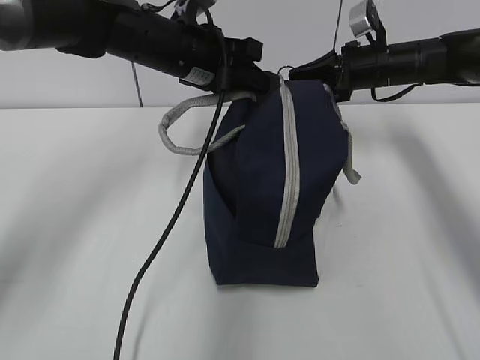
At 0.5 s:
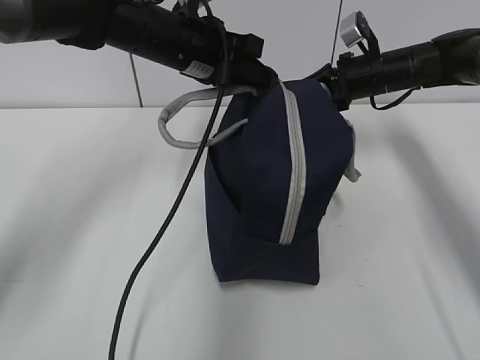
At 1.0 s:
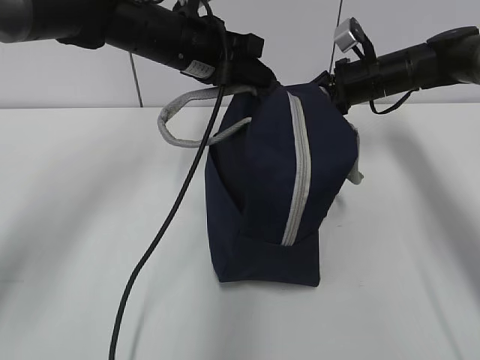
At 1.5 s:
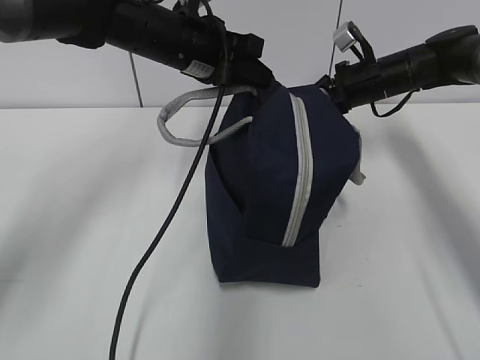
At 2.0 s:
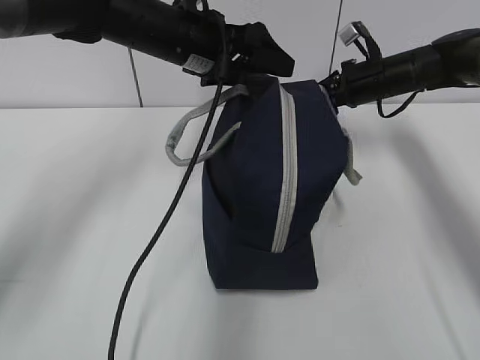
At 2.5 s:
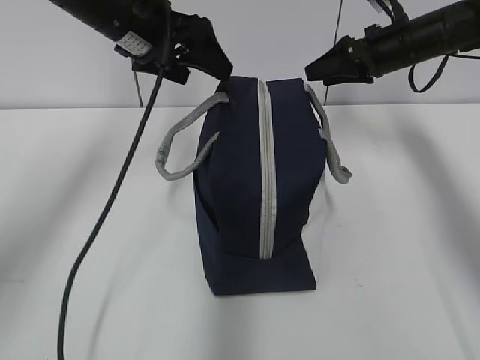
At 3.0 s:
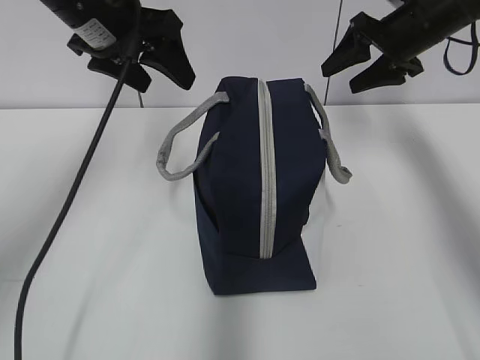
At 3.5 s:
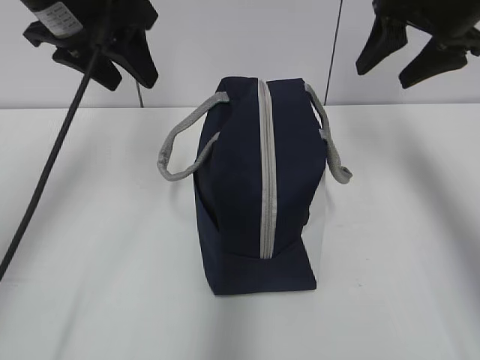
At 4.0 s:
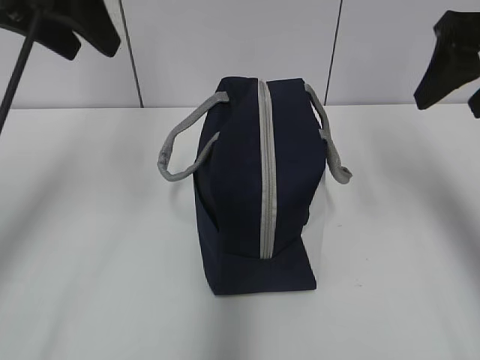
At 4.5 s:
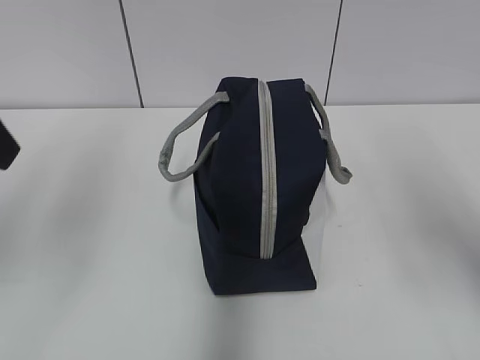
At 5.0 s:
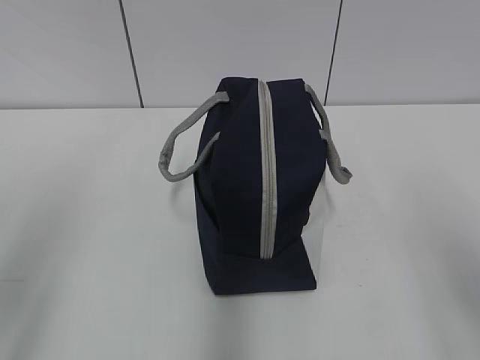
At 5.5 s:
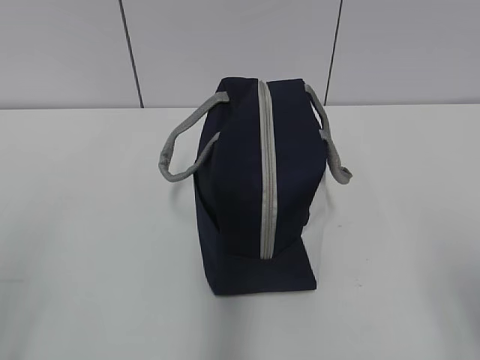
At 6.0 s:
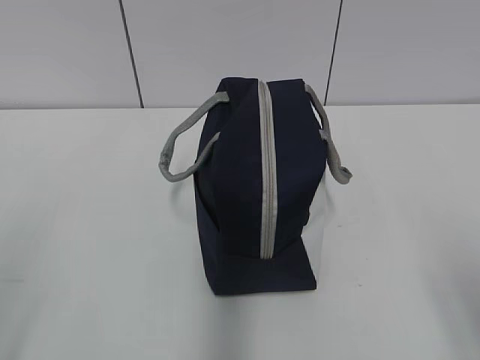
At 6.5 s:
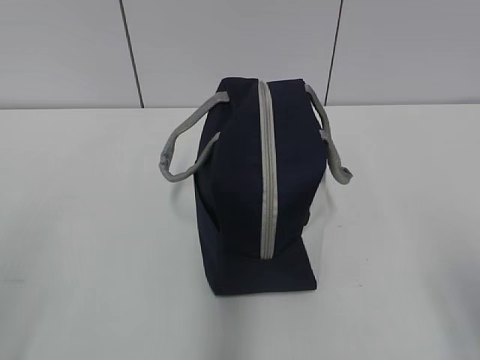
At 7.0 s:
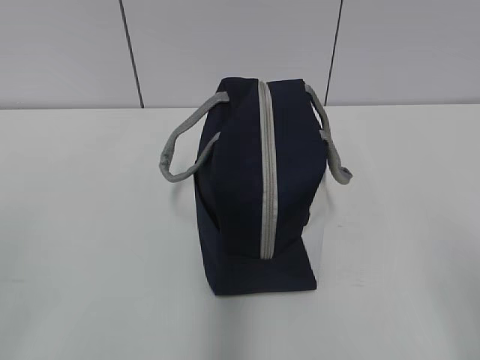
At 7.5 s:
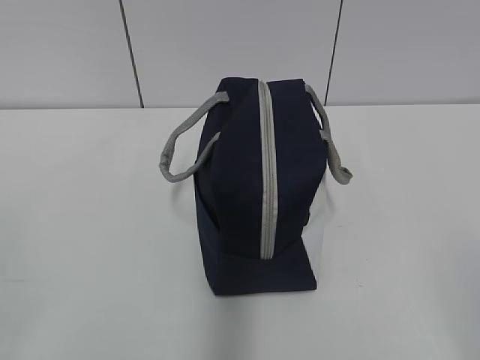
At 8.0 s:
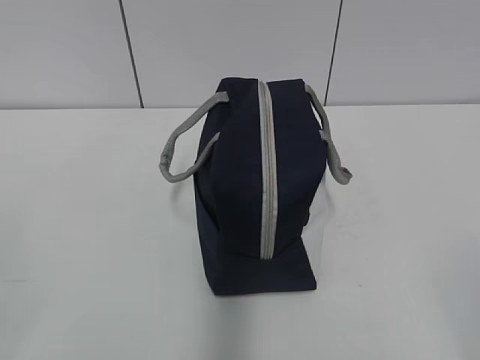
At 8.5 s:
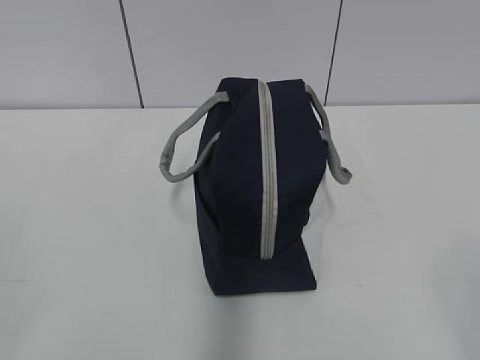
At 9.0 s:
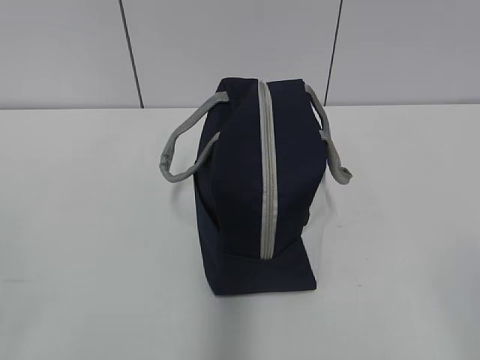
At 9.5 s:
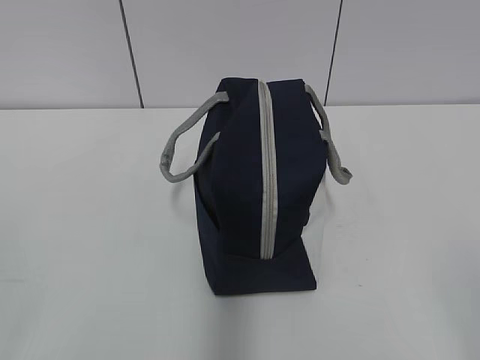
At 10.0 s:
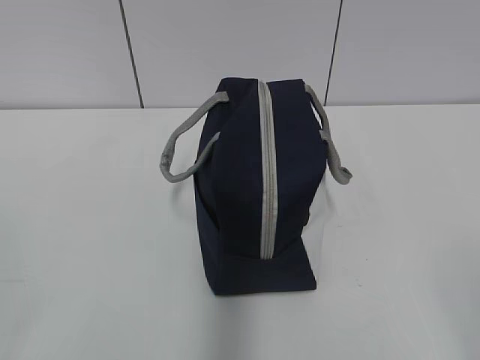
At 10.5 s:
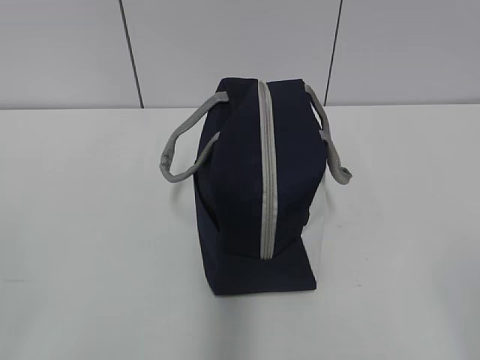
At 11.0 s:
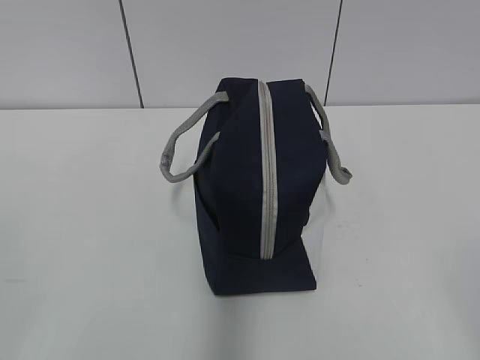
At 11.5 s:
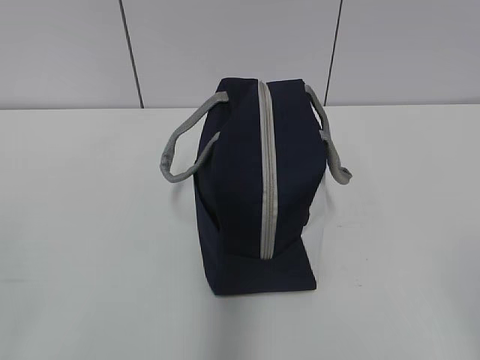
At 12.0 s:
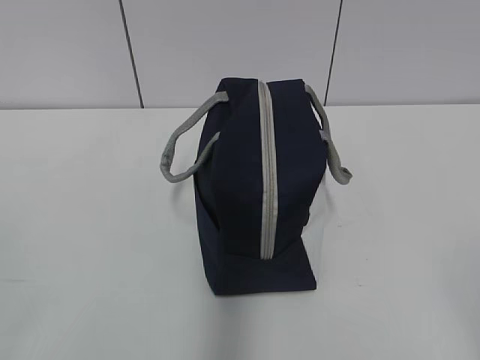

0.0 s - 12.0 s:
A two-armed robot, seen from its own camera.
0.0 s - 2.0 s: The left gripper opens its fingers. Meanwhile the right gripper opens.
2.0 s - 4.0 s: The right gripper shifts about 25 cm backward and upward. Meanwhile the left gripper shifts about 20 cm upward, to the left and backward.
4.0 s - 6.0 s: The grippers both shift backward and downward by roughly 25 cm.
10.0 s - 12.0 s: Both grippers stay put.

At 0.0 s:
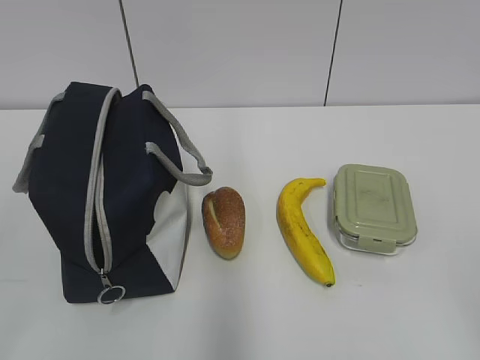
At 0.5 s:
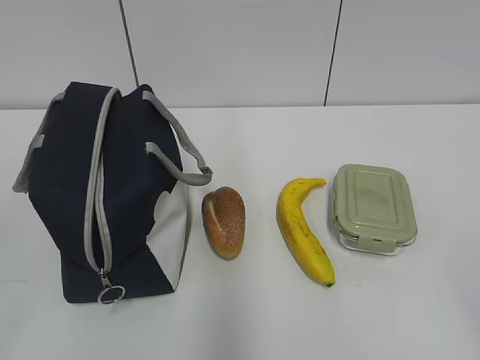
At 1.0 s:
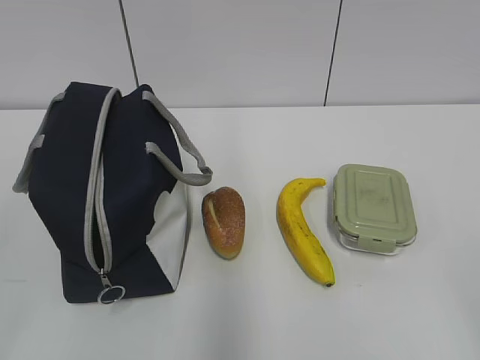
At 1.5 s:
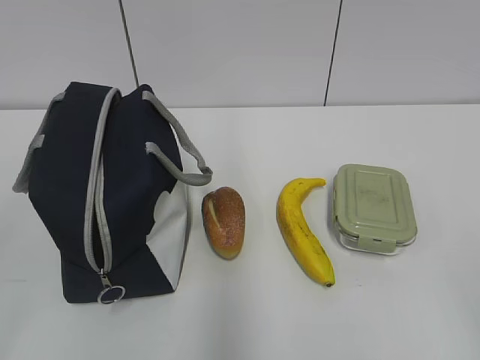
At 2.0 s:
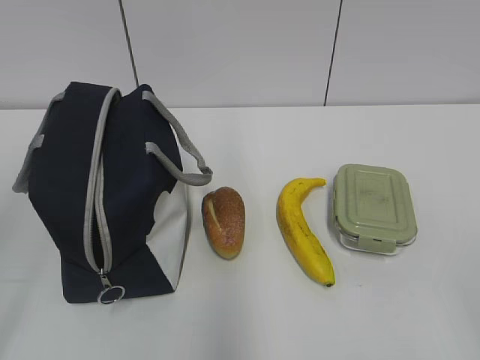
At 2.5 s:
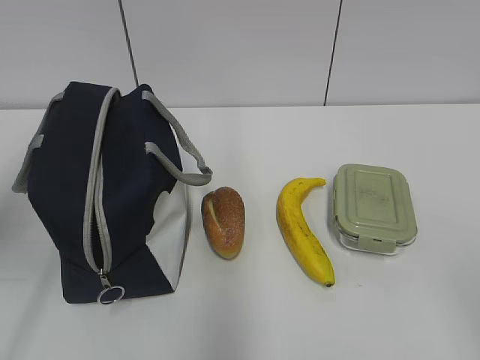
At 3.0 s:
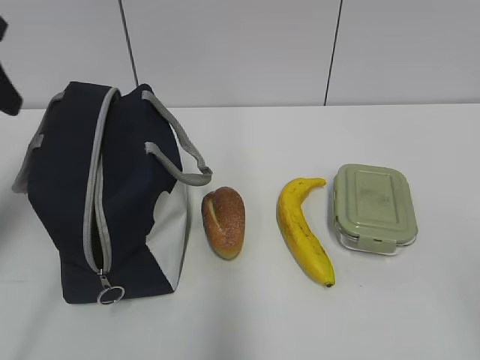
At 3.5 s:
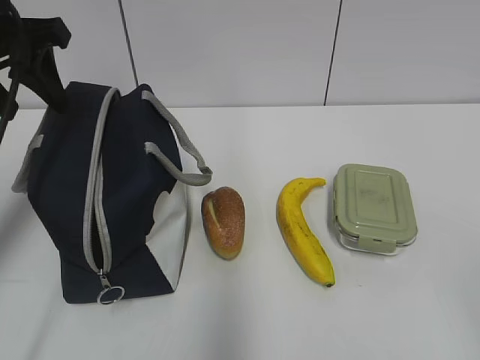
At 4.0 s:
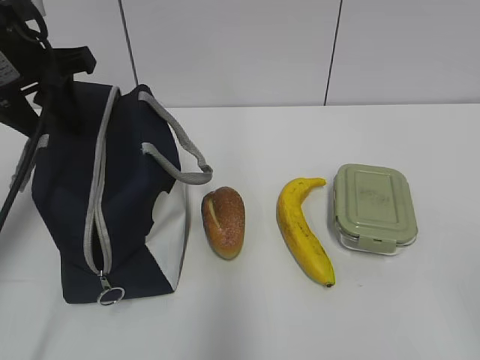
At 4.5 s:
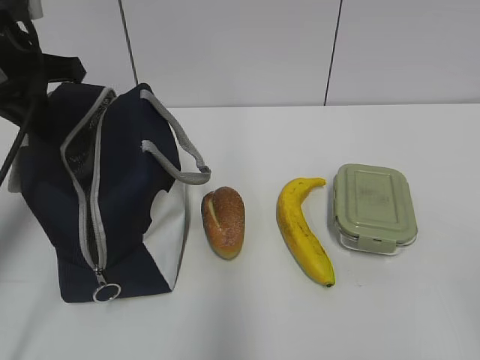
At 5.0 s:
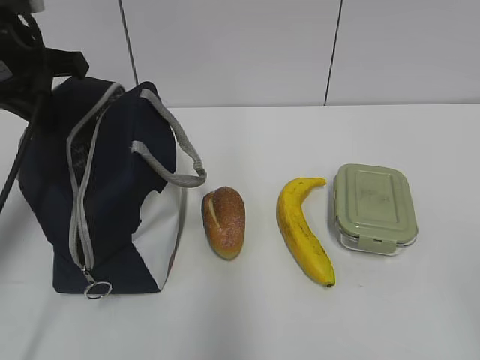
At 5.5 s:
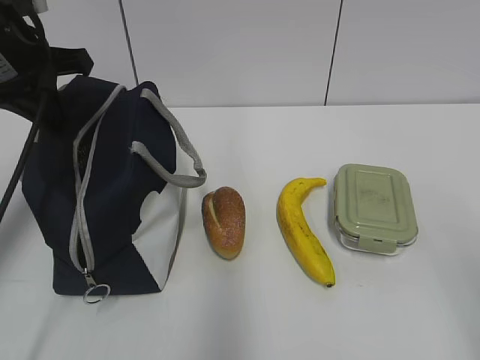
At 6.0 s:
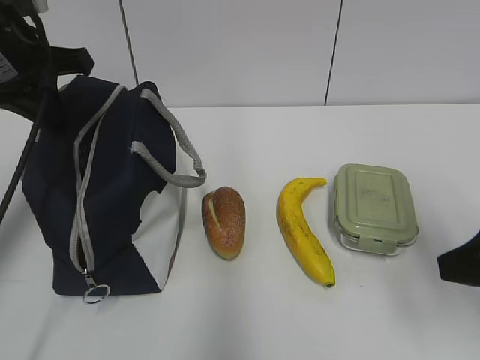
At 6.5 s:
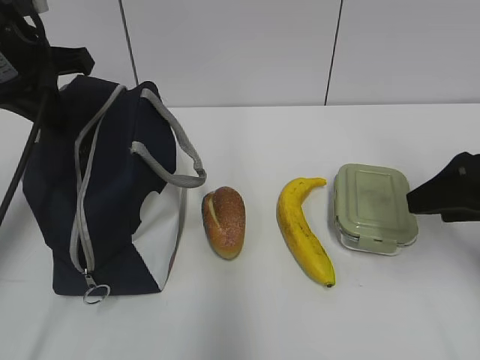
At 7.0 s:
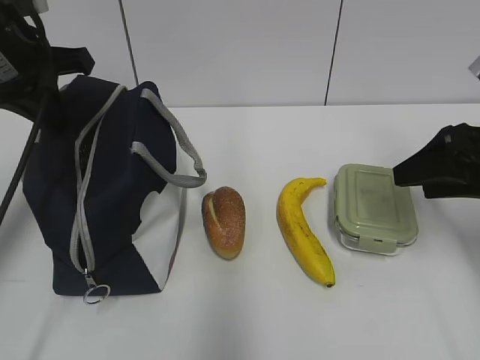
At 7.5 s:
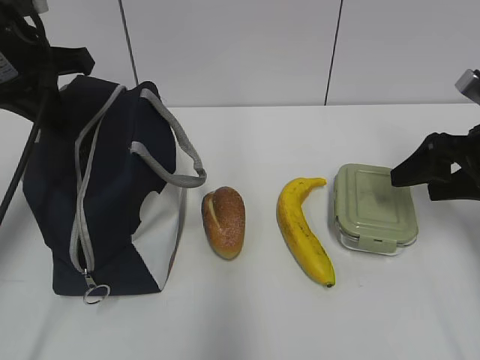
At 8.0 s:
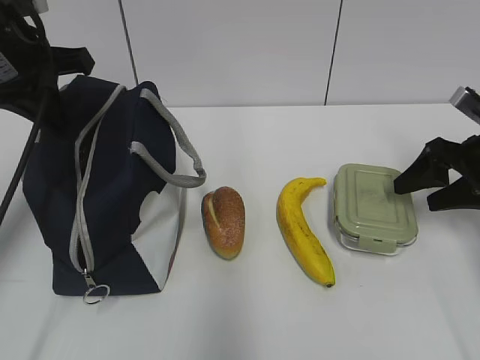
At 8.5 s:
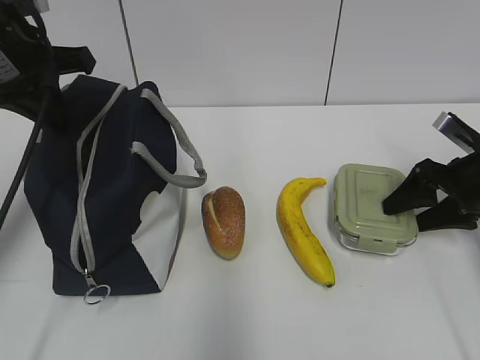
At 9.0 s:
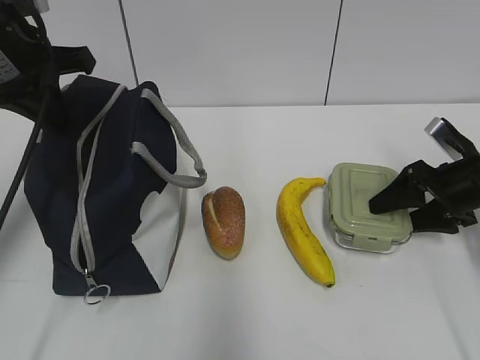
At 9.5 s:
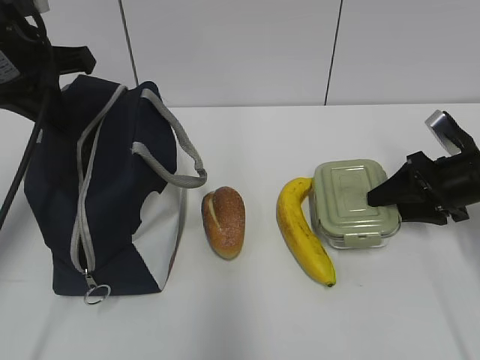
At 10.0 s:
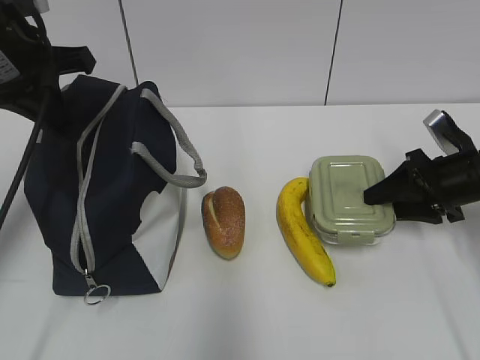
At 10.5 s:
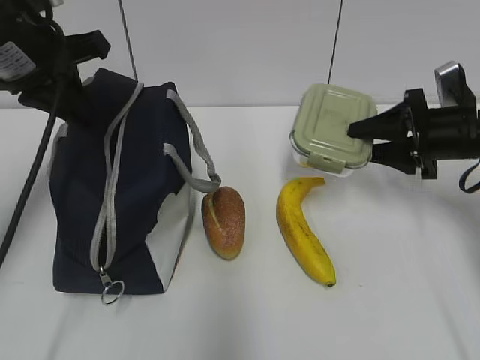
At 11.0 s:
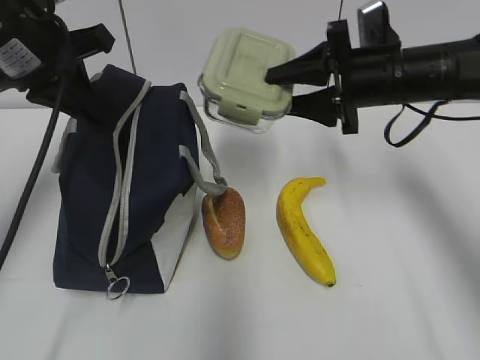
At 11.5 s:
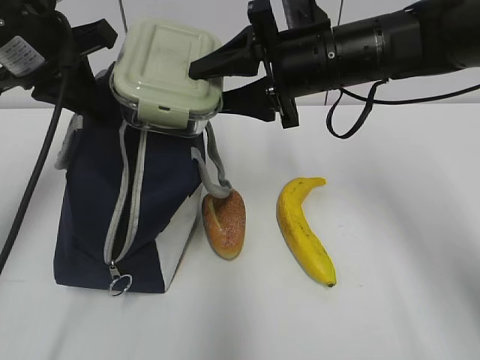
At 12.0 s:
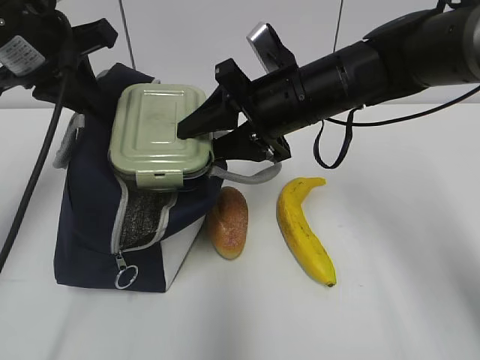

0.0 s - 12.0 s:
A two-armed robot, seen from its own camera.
2.0 s - 4.0 s: The left gripper moves forward, roughly 30 cm.
4.0 s - 6.0 s: The left gripper closes up. The right gripper heads forward, covering some 15 cm.
6.0 s - 8.0 s: The right gripper heads forward, covering some 20 cm.
8.0 s - 10.0 s: The grippers move only a little.
10.0 s - 12.0 s: The right gripper moves to the left and upward, some 25 cm.

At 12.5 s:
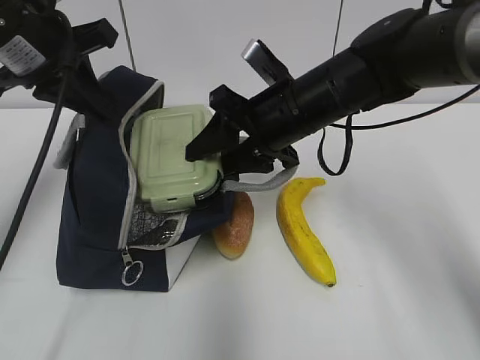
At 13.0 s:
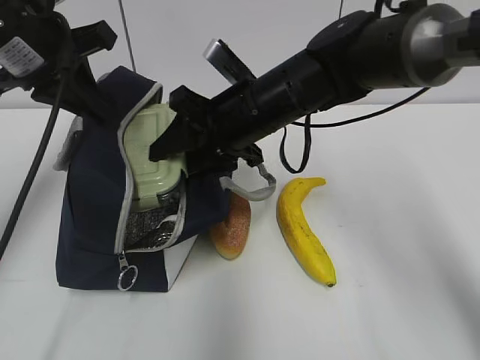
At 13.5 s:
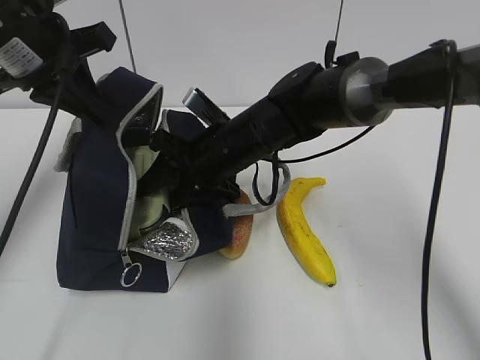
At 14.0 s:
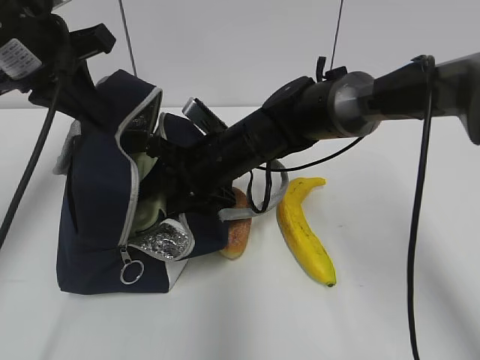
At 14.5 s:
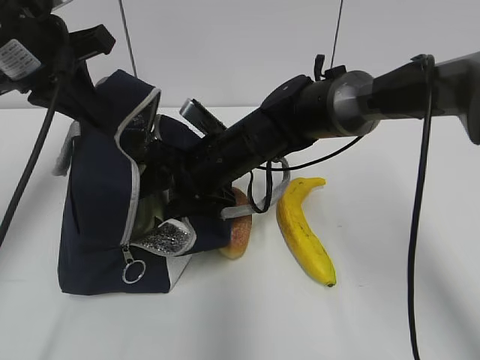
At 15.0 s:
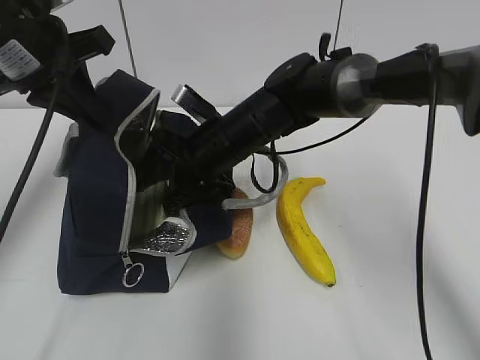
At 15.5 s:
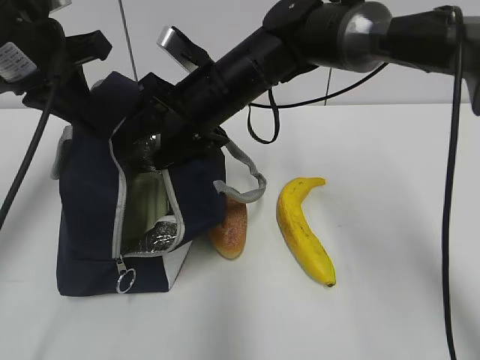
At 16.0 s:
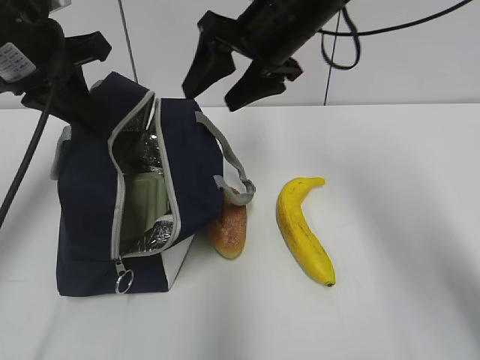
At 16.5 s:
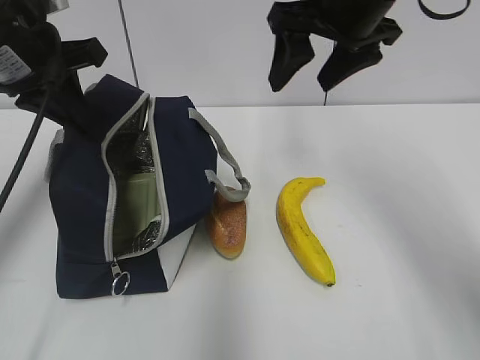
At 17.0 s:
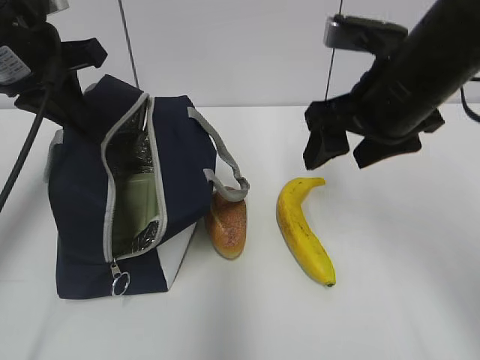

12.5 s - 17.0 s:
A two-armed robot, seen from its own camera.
12.5 s - 14.5 s: The right gripper heads downward and to the left, covering roughly 10 cm.
14.5 s - 17.0 s: The right gripper moves to the right, upward and backward, roughly 20 cm.
